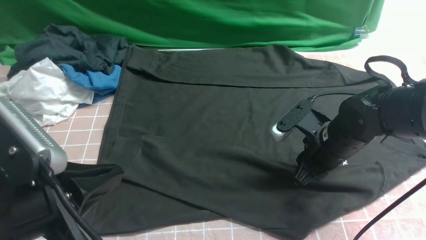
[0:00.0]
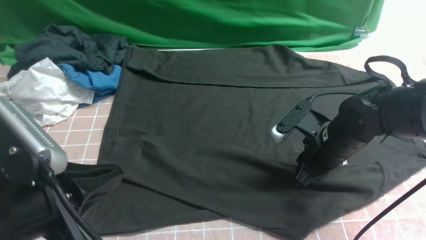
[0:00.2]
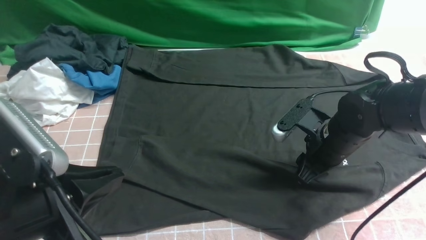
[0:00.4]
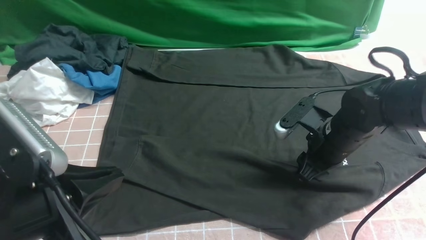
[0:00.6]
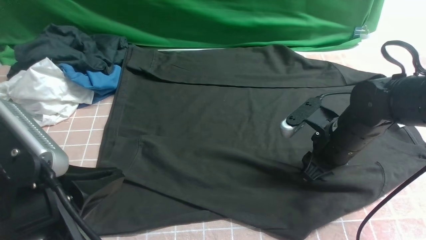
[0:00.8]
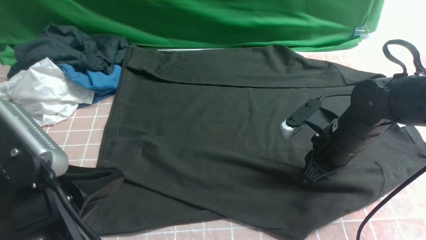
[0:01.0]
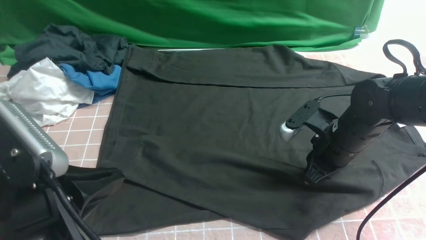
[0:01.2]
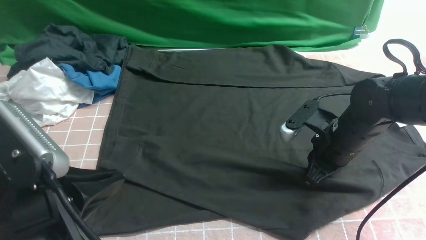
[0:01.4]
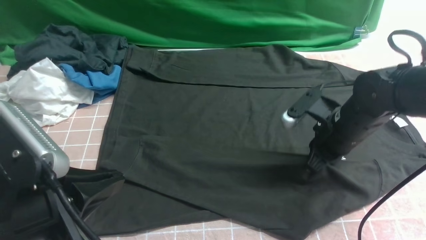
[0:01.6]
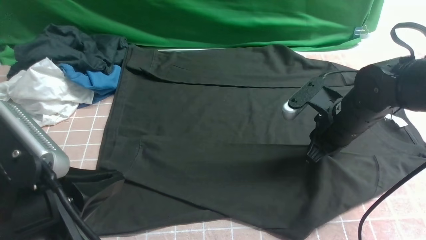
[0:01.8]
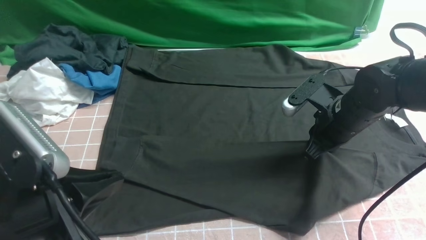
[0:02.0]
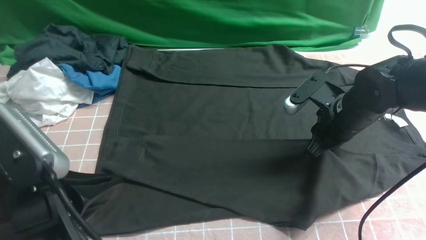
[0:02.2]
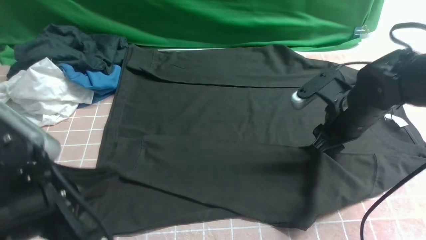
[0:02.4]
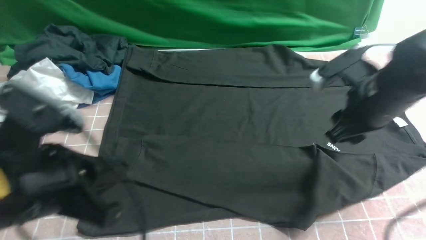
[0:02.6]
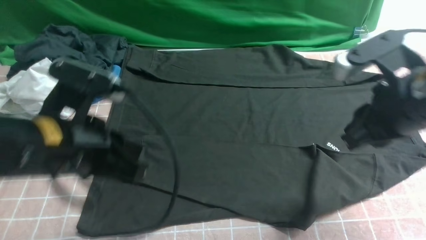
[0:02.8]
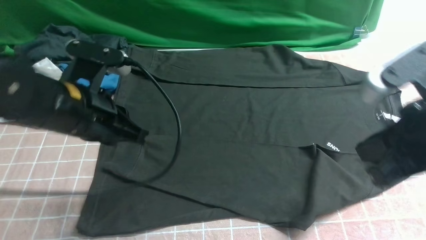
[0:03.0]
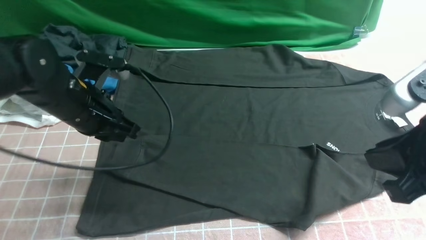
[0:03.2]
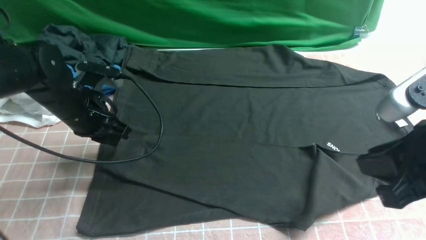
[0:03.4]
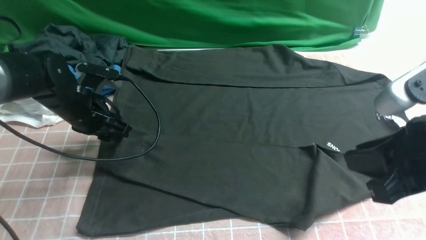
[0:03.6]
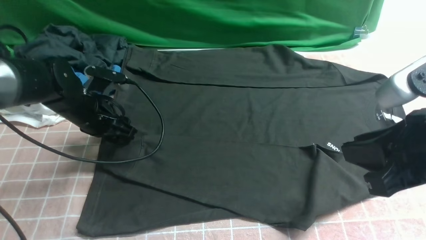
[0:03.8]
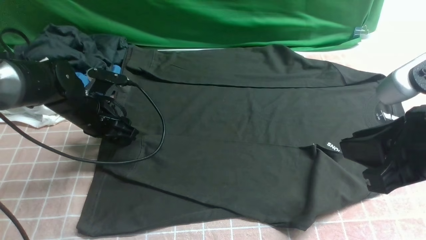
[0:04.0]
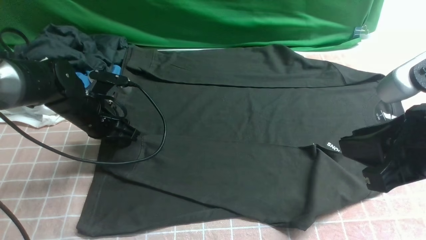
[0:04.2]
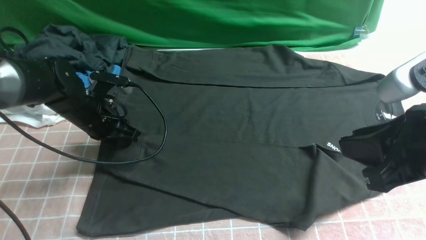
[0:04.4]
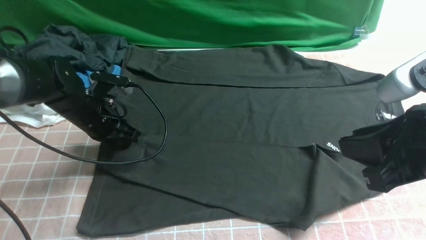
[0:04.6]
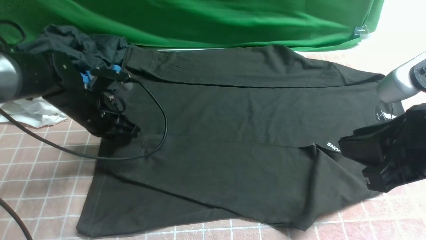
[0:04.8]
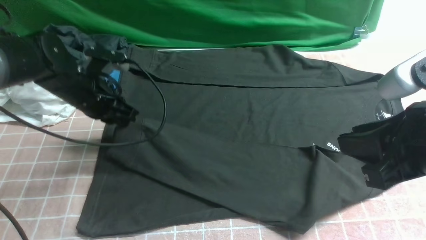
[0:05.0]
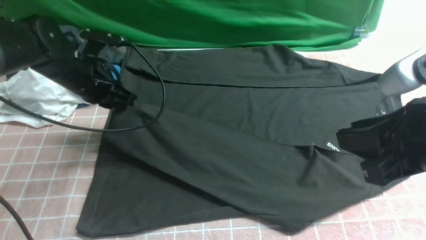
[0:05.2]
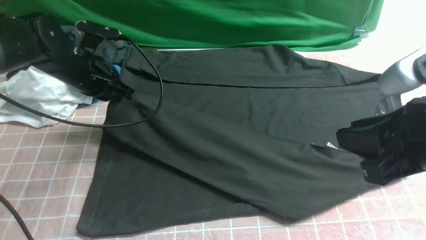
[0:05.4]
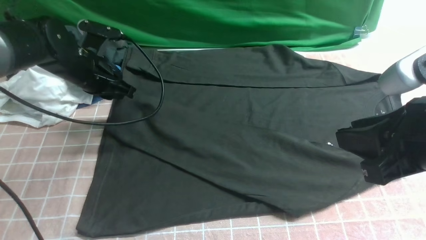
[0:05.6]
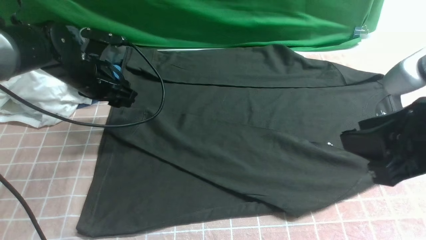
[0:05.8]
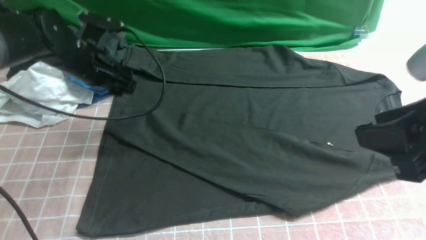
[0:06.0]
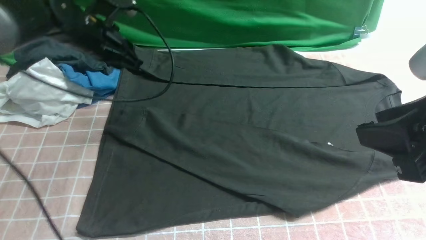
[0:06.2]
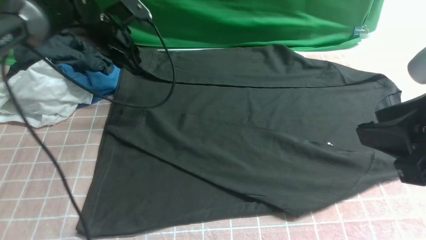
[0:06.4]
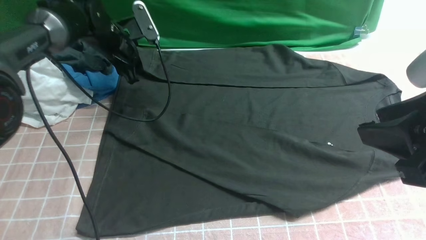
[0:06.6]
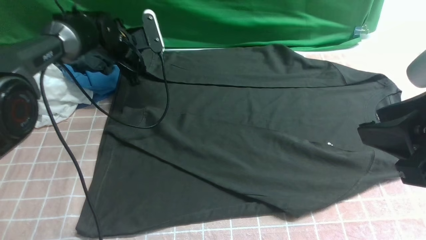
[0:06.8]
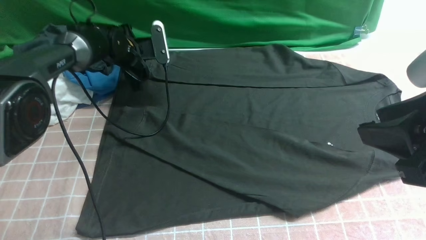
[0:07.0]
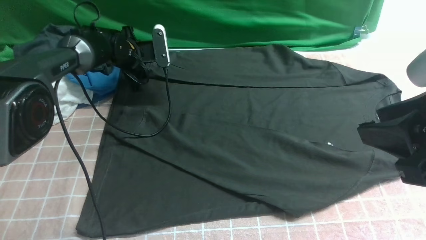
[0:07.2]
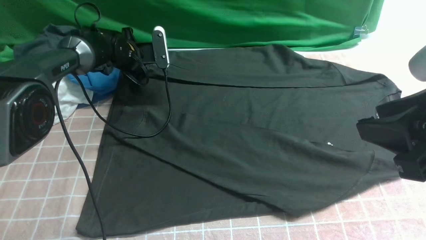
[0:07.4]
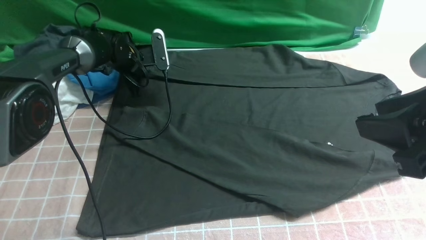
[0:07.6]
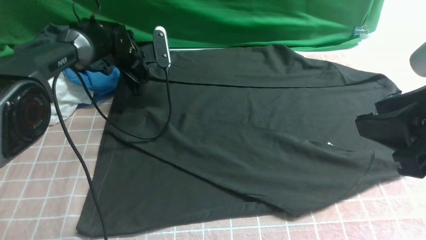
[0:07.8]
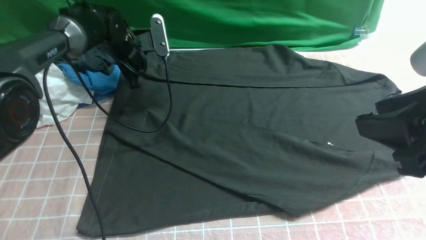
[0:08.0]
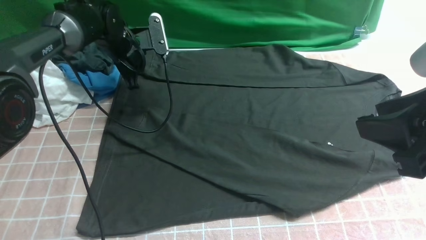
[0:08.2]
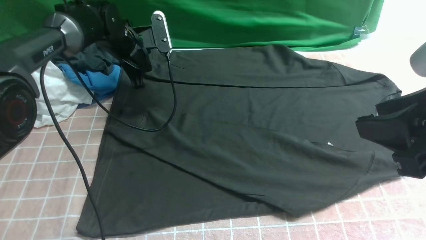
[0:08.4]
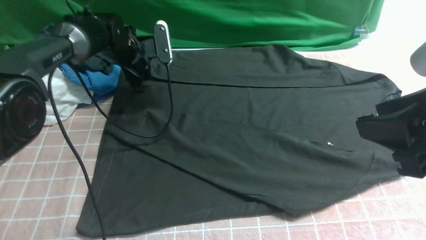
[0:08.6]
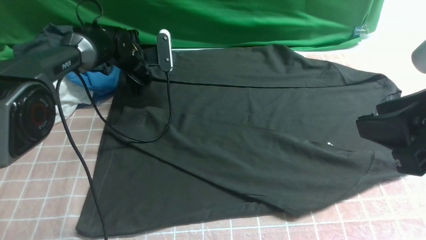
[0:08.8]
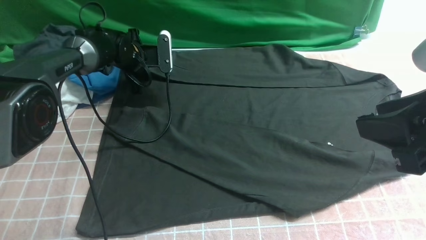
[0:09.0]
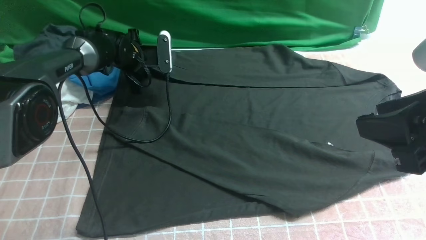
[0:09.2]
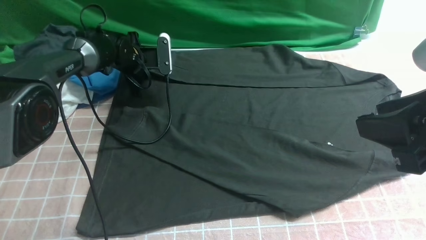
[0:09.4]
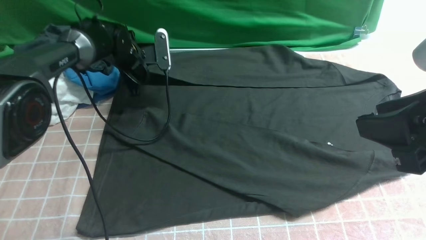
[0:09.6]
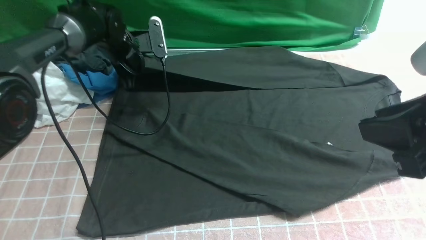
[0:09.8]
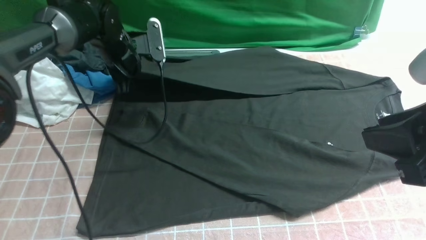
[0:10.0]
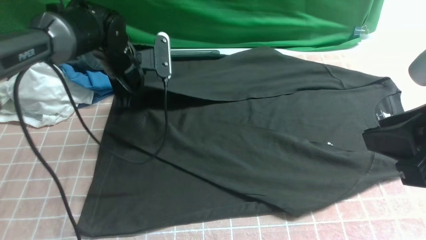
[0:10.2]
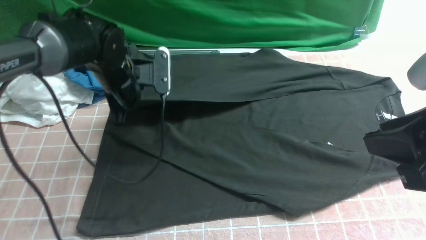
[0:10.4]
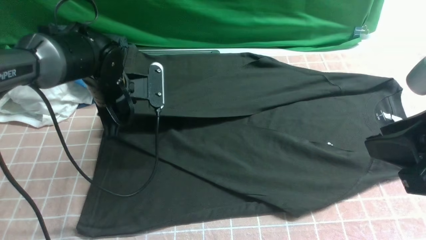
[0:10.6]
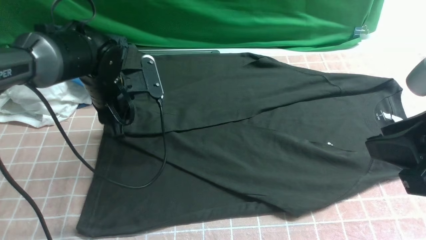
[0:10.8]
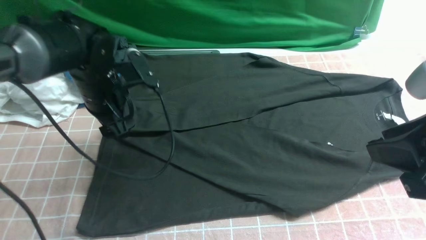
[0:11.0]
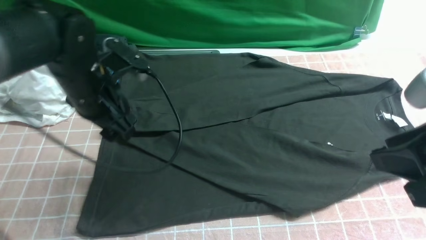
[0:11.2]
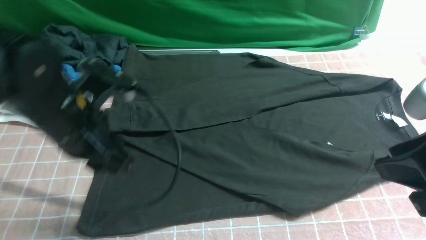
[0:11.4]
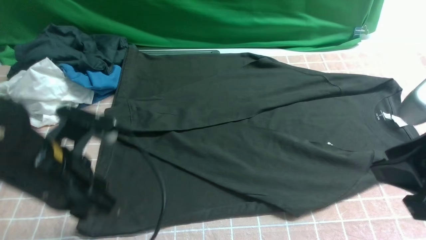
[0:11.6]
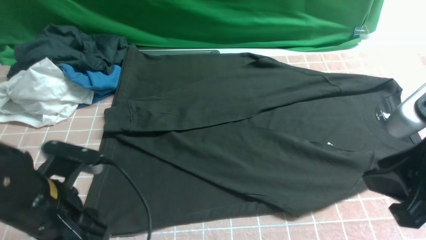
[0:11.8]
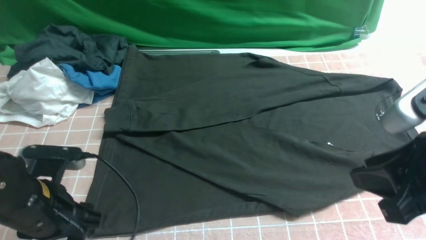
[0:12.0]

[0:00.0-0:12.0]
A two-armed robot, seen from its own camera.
Step, 0:00.0 to 0:06.2: use the left arm to drag and place the cuff at the centered position on the left edge of the fabric.
Step, 0:06.4 to 0:09.4: use the left arm to clamp the cuff farthest from it.
Step, 0:09.8 to 0:11.0: use the left arm to drag and drop the cuff onto the cuff closest to the left arm.
0:00.0 to 0:01.6: The right gripper closes up.
0:01.6 to 0:03.0: The right gripper shifts roughly 20 cm upward and backward. Meanwhile the left gripper heads forward, covering about 15 cm.
0:03.0 to 0:04.4: The left gripper goes about 15 cm downward, forward and to the left, and opens, then closes once more.
0:04.4 to 0:06.0: The left gripper heads upward and forward, covering roughly 10 cm, and opens its fingers.
0:06.0 to 0:07.6: The left gripper is displaced forward and downward by about 15 cm, and closes its fingers.
0:07.6 to 0:09.0: The left gripper opens.
0:09.0 to 0:10.4: The left gripper goes some 15 cm backward and upward, and closes.
0:10.4 to 0:12.0: The left gripper heads backward, covering some 20 cm, and opens its fingers.

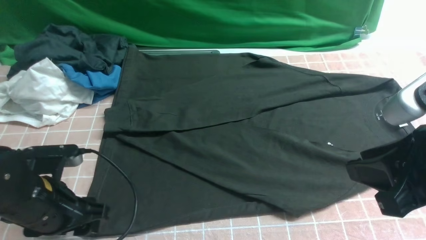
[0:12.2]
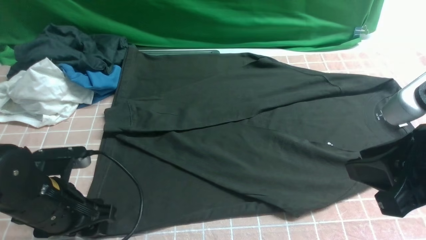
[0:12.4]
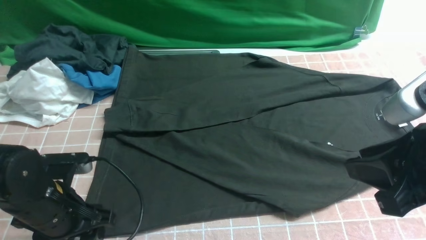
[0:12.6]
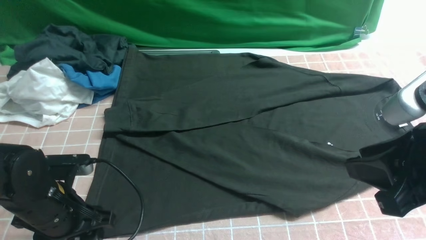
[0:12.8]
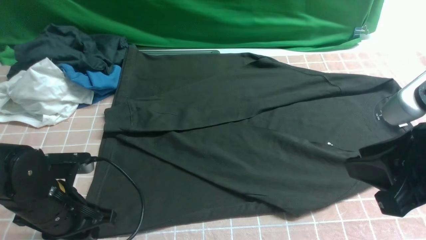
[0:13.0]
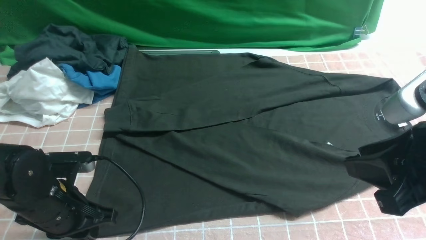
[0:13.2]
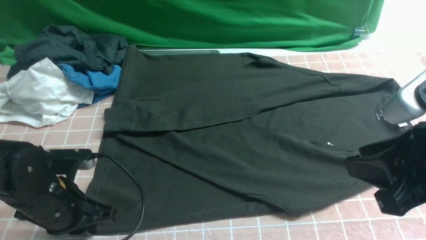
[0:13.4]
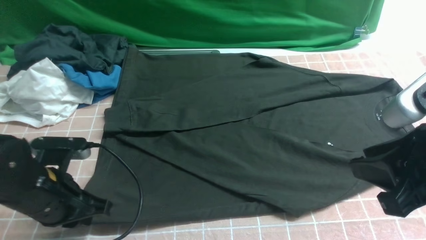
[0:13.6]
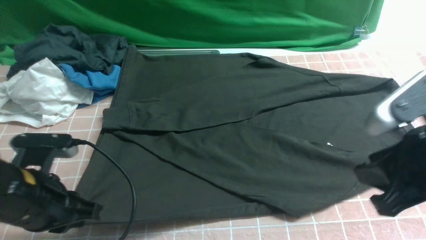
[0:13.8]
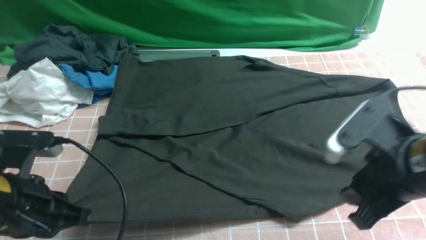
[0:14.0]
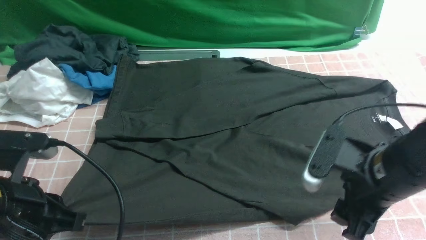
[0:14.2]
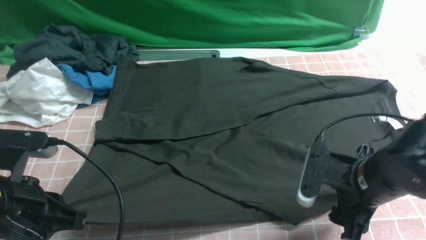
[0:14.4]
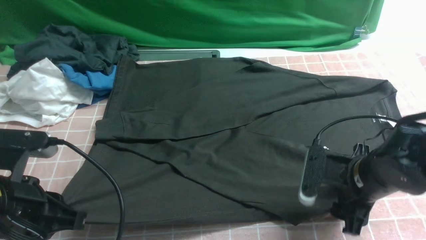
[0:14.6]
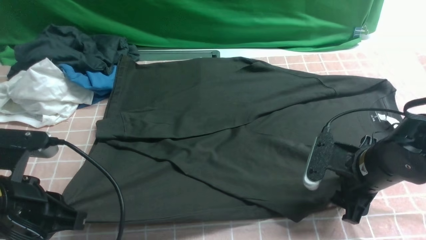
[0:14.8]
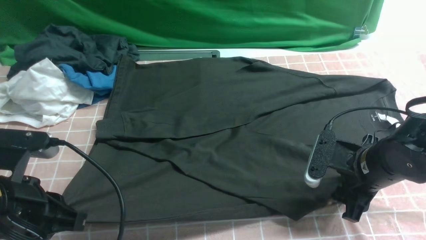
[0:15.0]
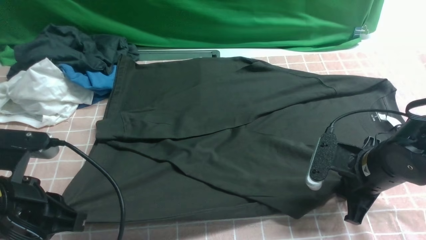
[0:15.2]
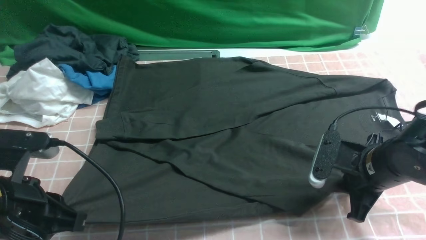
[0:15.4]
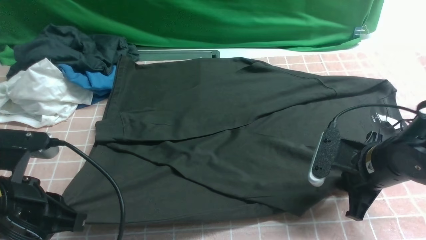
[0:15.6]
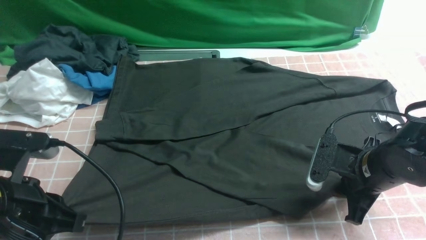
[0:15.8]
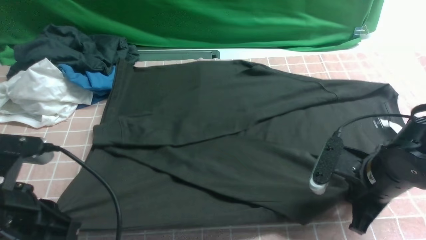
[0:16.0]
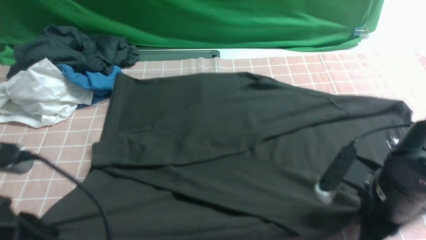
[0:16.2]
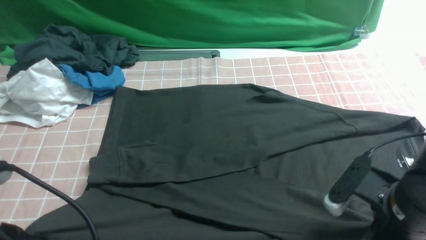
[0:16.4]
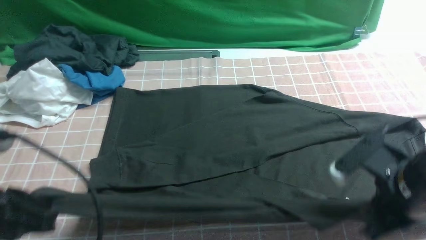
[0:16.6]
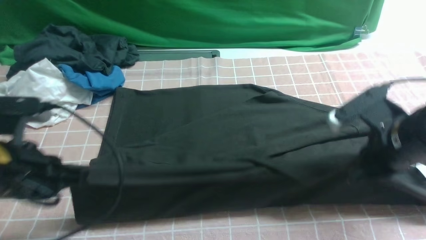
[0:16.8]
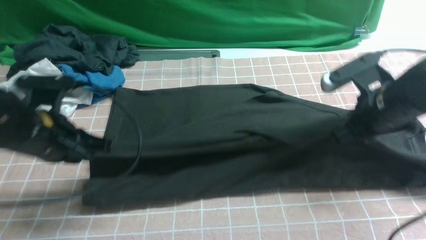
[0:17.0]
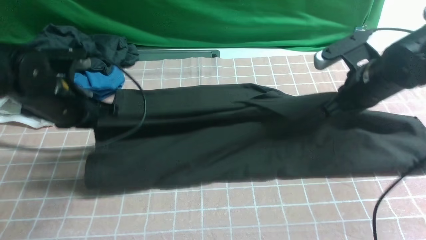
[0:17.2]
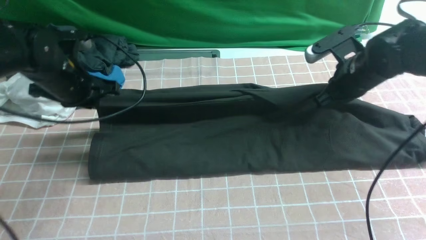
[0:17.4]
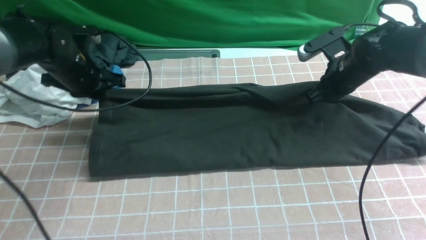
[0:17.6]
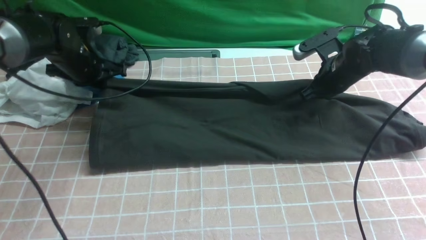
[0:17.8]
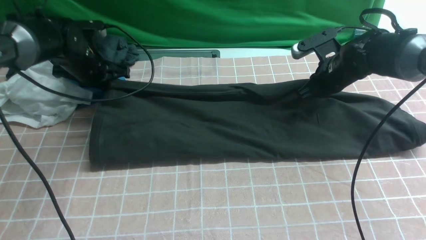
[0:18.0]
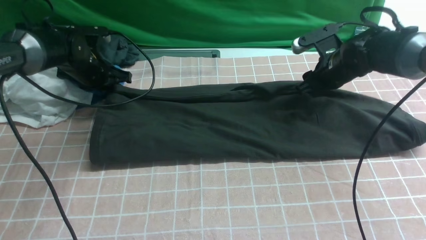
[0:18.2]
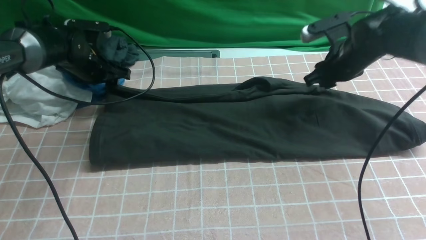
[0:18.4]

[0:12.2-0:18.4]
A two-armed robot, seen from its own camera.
Step, 0:12.2 to 0:15.8: use both arms simultaneously to clamp the lower edge of the clothing fabric.
0:12.2 to 0:13.8: The left gripper closes.
0:13.8 to 0:15.4: The right gripper is displaced downward and forward by approximately 15 cm, and opens, then closes again.
0:15.4 to 0:16.8: The left gripper ends up approximately 5 cm from where it was; the right gripper shifts roughly 5 cm upward.
0:16.8 to 0:18.4: The left gripper heads forward, covering about 25 cm, and opens up; the right gripper travels forward by roughly 20 cm, and opens up.
